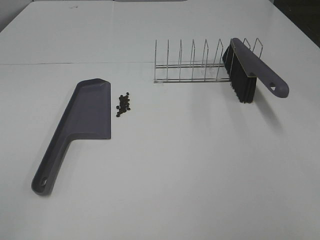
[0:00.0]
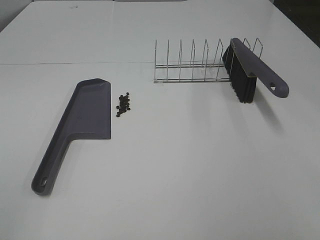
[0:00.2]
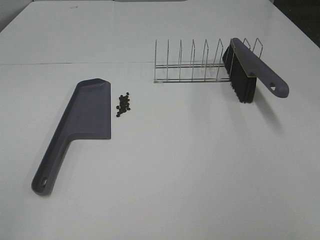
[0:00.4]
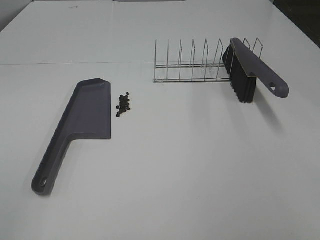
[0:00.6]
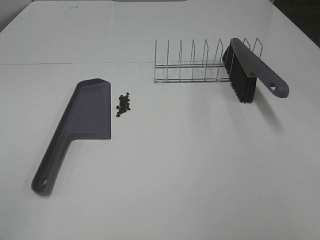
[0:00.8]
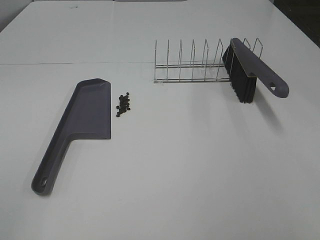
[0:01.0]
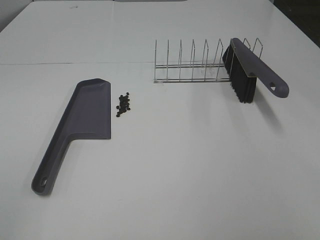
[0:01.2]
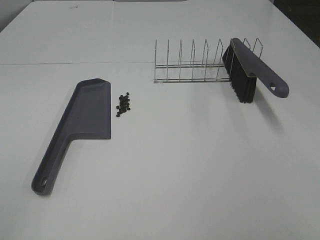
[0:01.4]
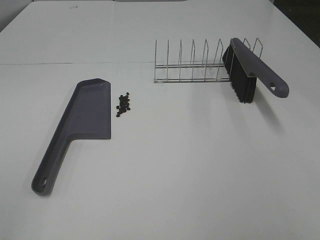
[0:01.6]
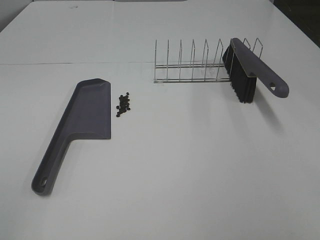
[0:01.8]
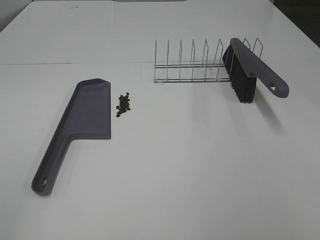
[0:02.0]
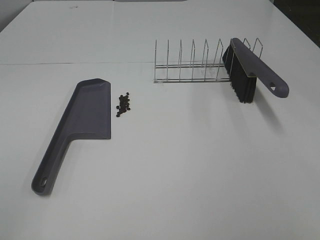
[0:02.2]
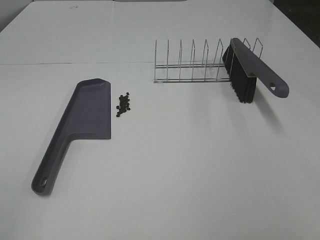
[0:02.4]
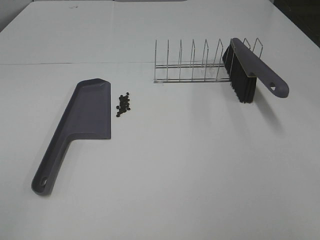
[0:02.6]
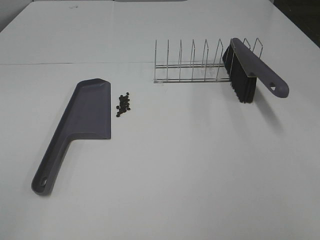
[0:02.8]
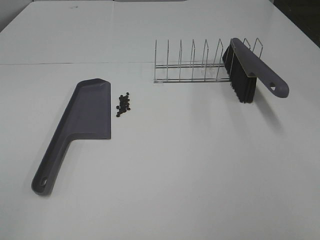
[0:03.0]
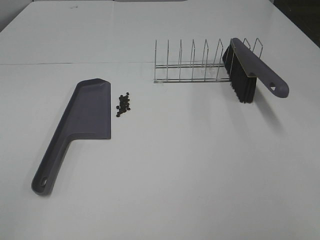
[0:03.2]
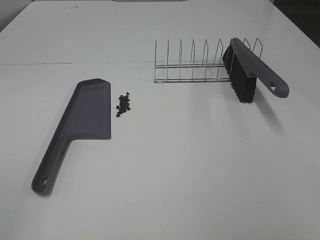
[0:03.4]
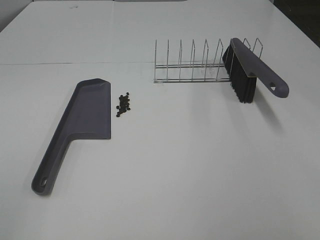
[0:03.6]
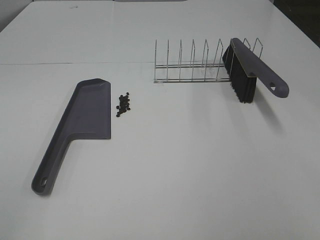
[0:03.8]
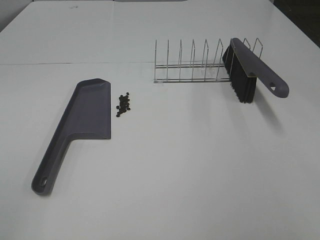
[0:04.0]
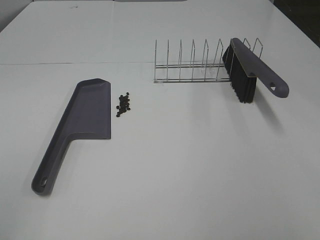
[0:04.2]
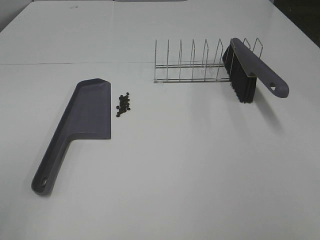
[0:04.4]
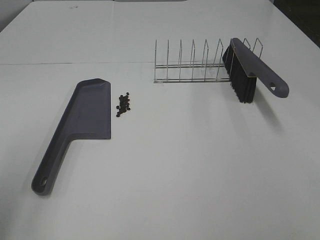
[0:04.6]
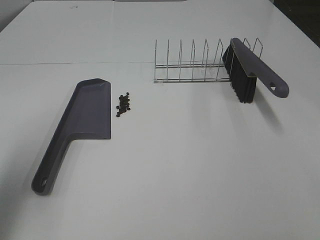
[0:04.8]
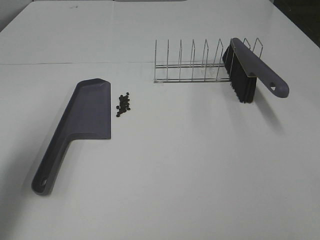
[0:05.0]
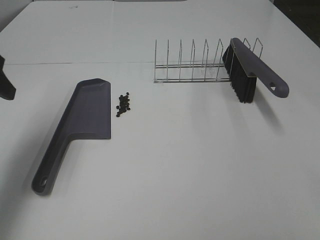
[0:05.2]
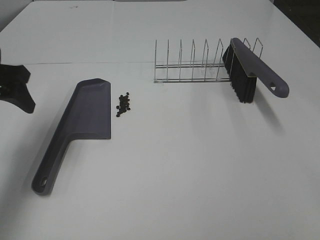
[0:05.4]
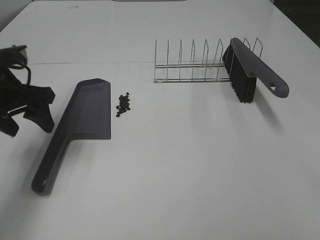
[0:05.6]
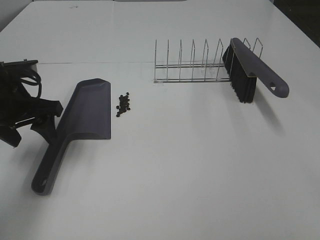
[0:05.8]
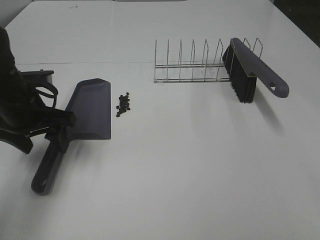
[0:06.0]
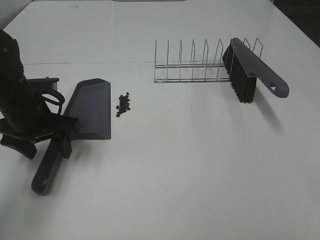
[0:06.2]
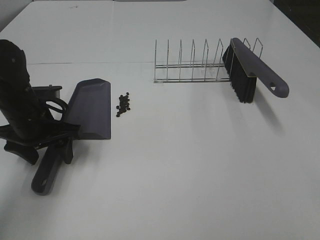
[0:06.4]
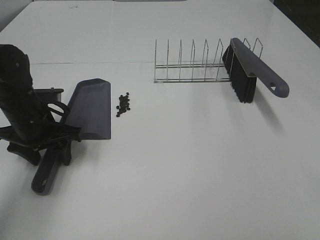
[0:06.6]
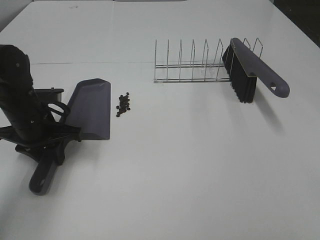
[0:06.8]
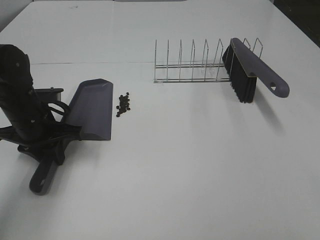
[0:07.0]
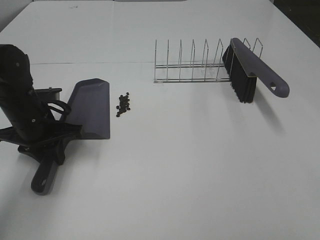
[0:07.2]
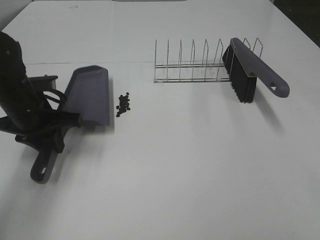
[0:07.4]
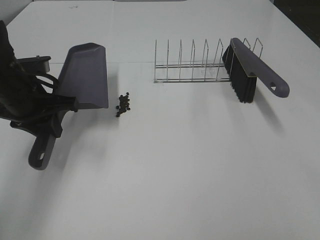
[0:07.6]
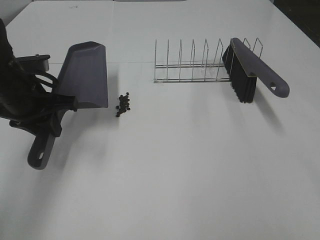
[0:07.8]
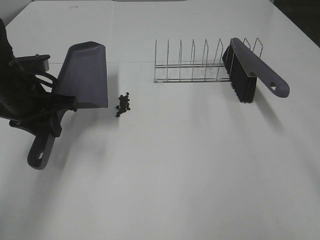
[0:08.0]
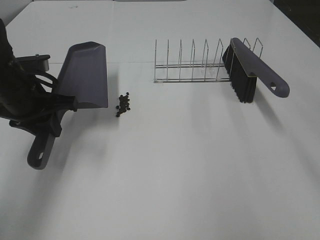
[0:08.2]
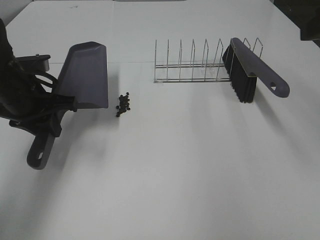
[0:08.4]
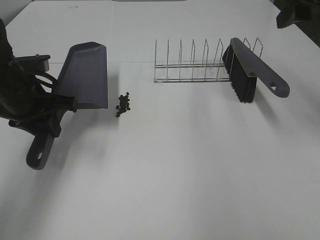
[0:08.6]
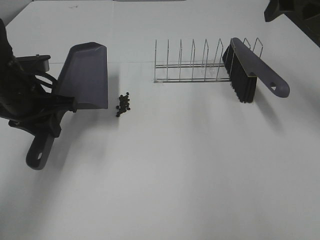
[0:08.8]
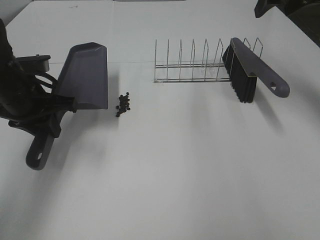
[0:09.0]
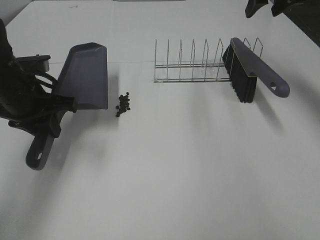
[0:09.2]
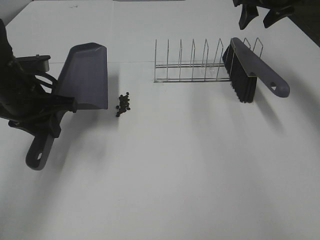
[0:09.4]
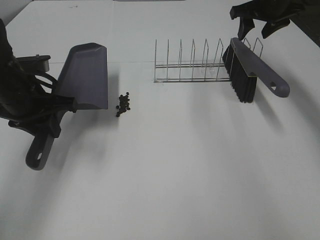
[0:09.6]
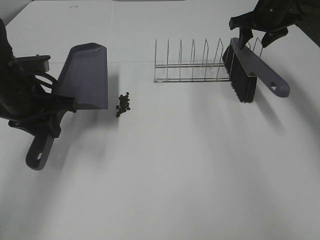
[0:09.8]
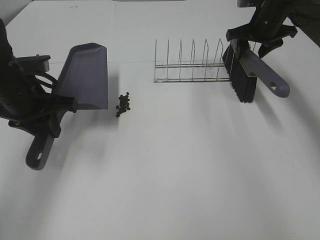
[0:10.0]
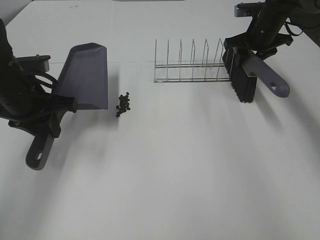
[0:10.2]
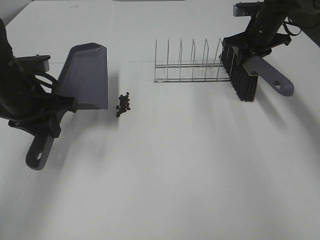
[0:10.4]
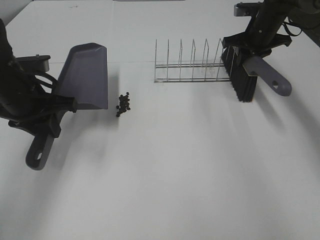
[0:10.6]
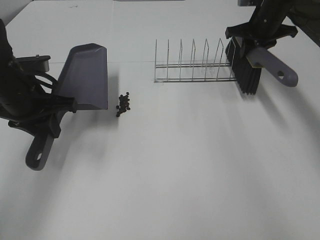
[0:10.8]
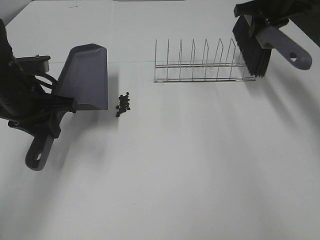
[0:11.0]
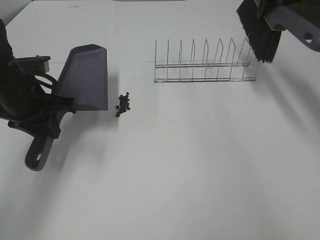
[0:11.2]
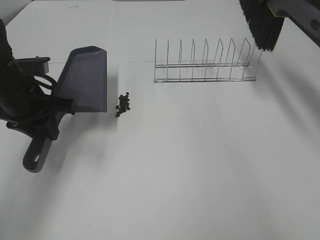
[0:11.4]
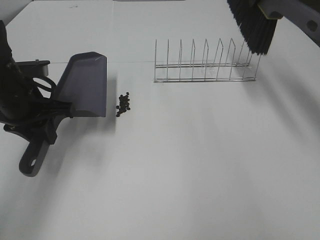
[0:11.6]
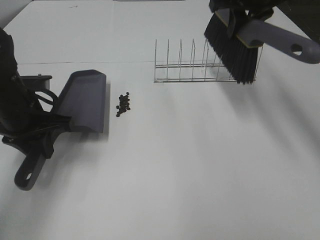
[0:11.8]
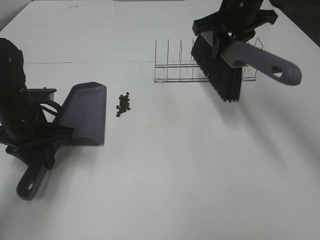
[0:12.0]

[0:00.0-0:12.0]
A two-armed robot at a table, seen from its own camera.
Task of the whole recording: Sweep Coffee Bean.
Step, 0:00.0 to 0:06.8: Left hand: grab the dustpan.
Step, 0:07.6 to 0:10.4: Right hand:grab the broom.
0:00.0 to 0:03.0: Both grippers stay about where they are.
0:04.4 to 0:06.0: The left gripper goes roughly 30 cm forward and downward.
0:06.0 to 0:07.6: The left gripper closes up.
0:07.6 to 0:09.0: The right gripper is displaced forward by some 40 cm, and closes.
0:09.0 to 0:10.4: The right gripper travels downward and forward by about 20 cm, and closes.
0:10.4 to 0:12.0: The left gripper is displaced downward by about 5 cm, while the right gripper moves to the left, backward and upward, about 15 cm.

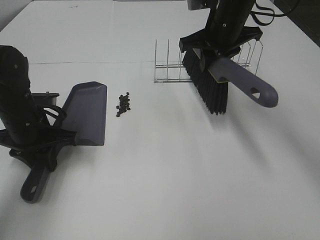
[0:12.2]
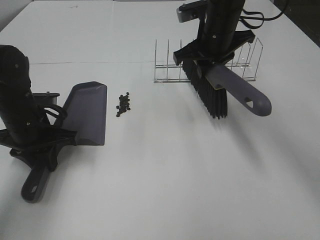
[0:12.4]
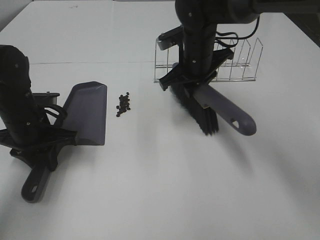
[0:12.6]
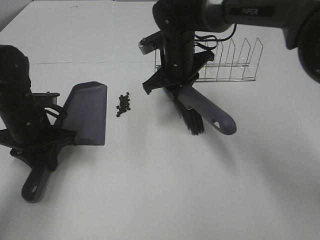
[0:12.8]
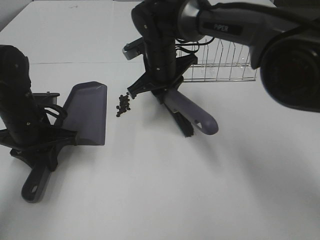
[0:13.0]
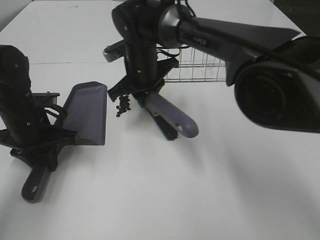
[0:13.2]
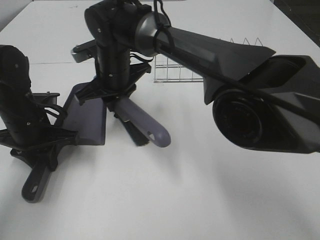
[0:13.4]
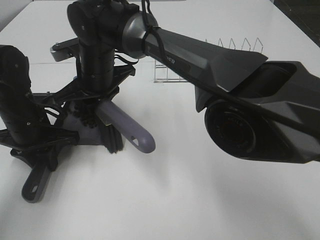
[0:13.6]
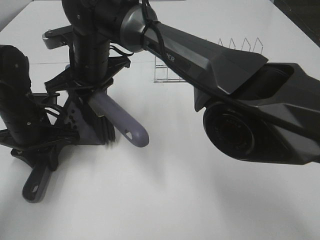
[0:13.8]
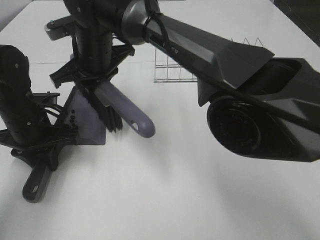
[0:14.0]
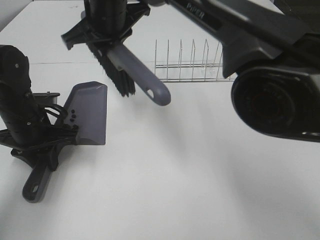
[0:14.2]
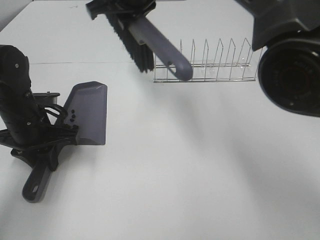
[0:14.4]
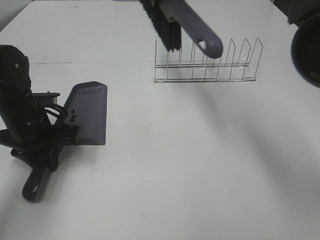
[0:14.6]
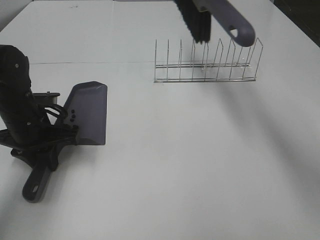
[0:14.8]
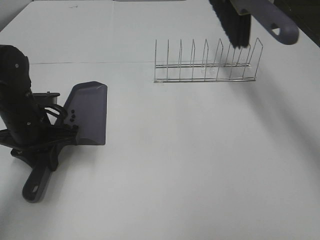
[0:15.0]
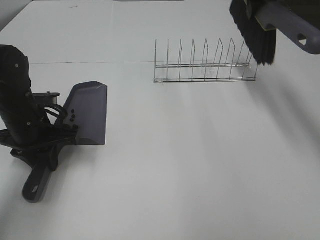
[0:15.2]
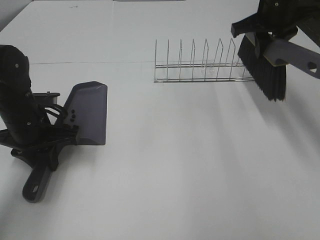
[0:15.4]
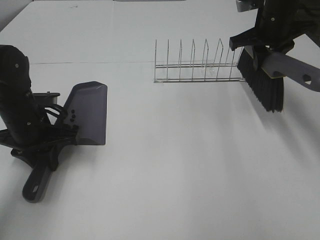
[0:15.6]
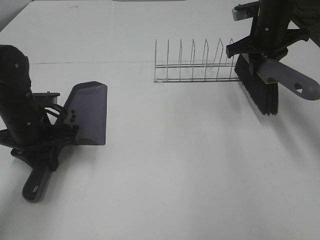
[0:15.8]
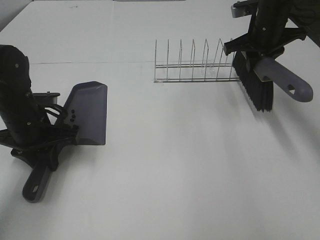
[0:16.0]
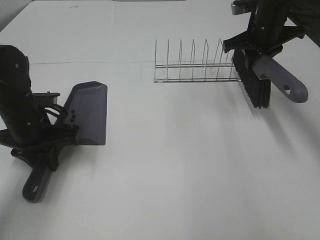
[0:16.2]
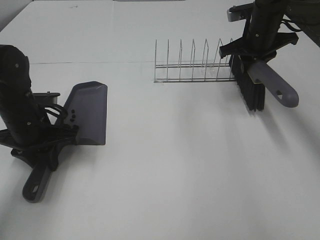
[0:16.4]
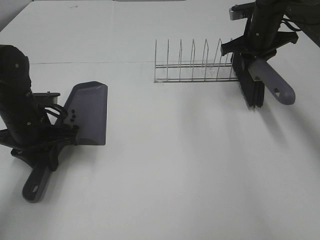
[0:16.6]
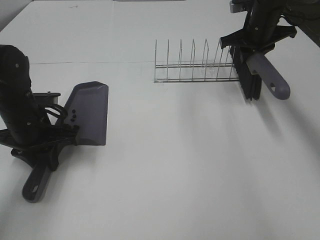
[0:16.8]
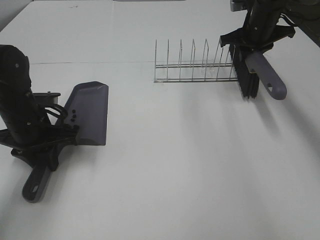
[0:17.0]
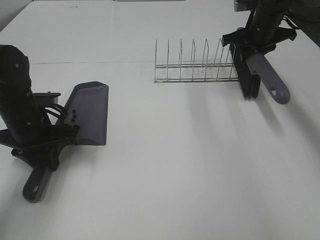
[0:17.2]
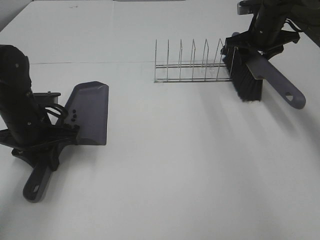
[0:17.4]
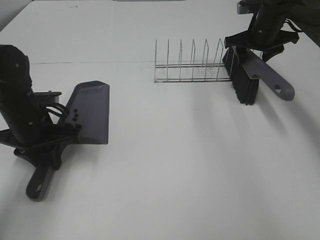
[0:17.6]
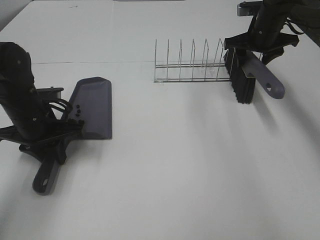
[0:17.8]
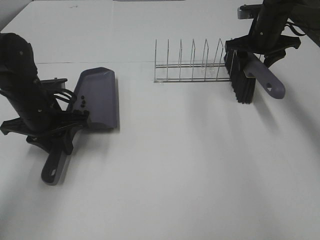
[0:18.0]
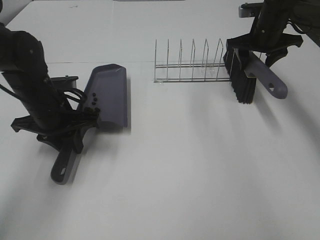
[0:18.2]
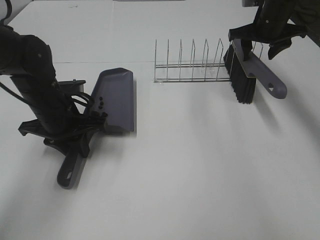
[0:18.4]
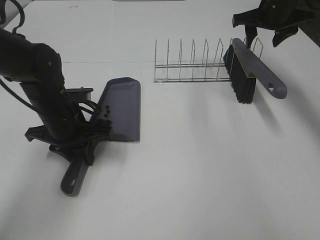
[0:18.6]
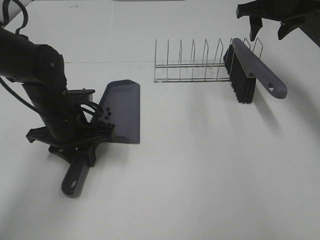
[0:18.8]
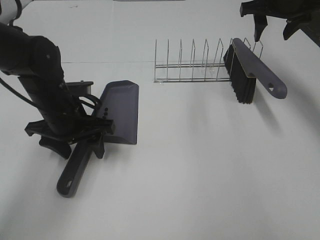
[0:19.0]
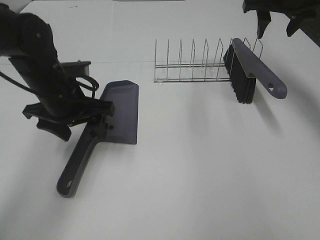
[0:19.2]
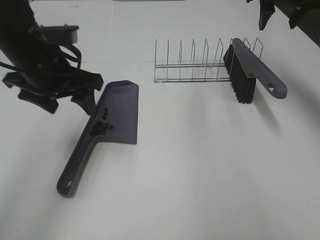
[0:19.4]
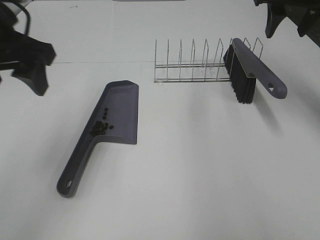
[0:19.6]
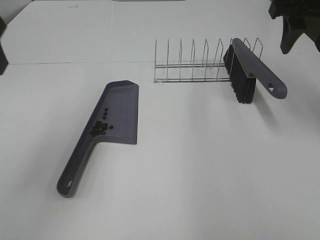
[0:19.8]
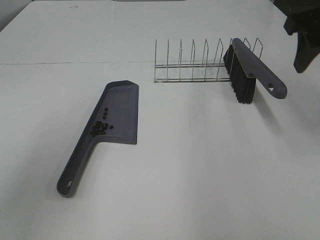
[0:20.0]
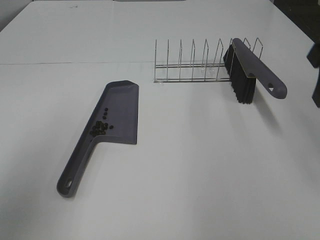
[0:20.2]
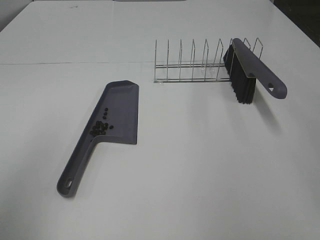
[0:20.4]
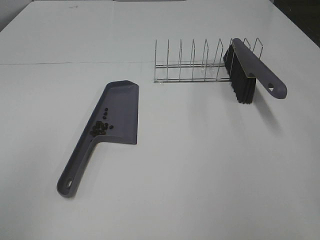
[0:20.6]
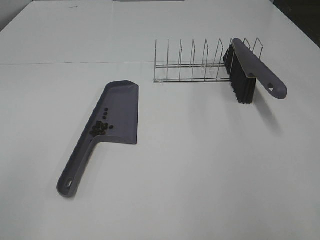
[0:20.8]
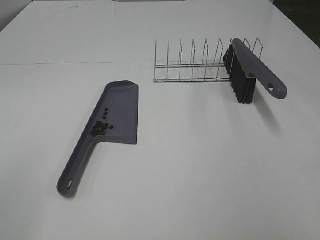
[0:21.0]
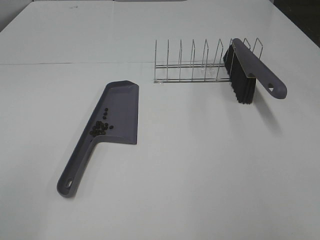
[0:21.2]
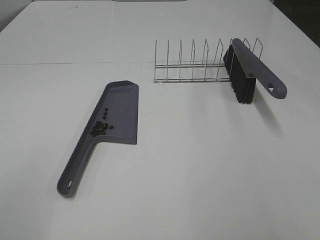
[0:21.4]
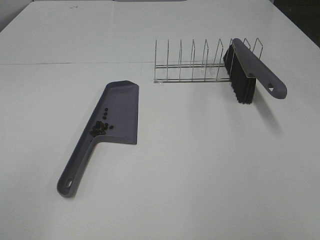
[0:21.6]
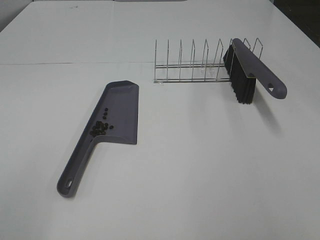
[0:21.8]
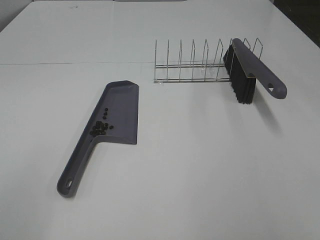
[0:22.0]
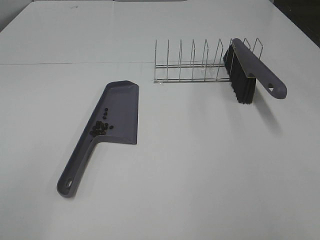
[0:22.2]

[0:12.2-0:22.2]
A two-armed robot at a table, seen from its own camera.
Task of the whole recording: Sweep Coffee Bean.
Step, 0:14.0 to 0:17.4: Right hand:place the broom on the rack.
Step, 0:17.6 to 0:19.0: Left hand:place the dustpan on the table.
0:12.2 to 0:13.6: The right gripper shifts roughly 25 cm to the left.
0:13.6 to 0:15.0: The right gripper travels to the right and upward by about 30 cm.
0:15.0 to 0:16.4: The right gripper goes roughly 15 cm downward and to the right.
0:16.4 to 0:18.0: The right gripper opens up.
0:18.0 to 0:19.4: The grippers both shift upward by about 10 cm. The left gripper opens.
0:19.4 to 0:20.8: The left gripper goes roughly 30 cm backward and to the left. Meanwhile the right gripper heads backward, covering approximately 35 cm.
